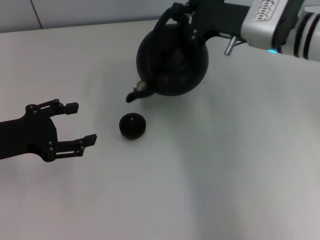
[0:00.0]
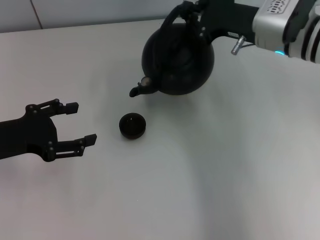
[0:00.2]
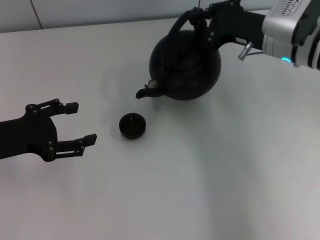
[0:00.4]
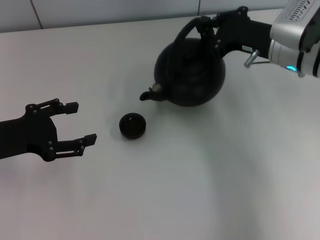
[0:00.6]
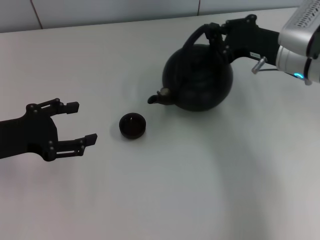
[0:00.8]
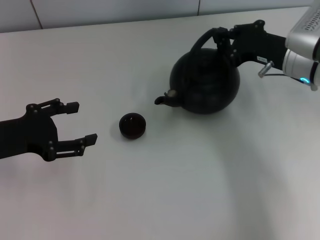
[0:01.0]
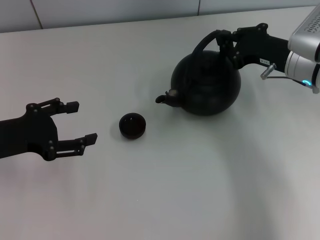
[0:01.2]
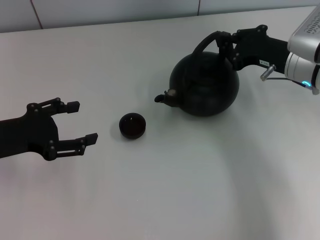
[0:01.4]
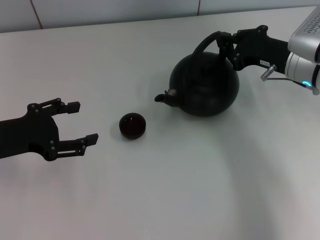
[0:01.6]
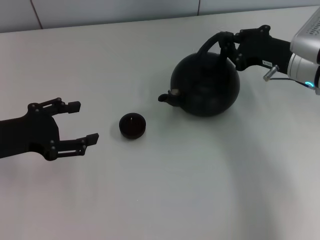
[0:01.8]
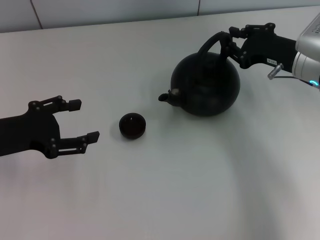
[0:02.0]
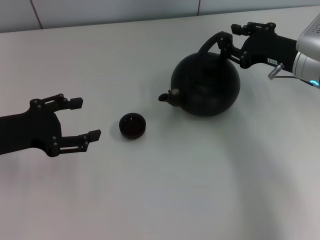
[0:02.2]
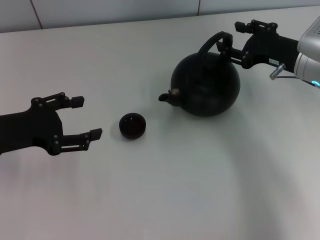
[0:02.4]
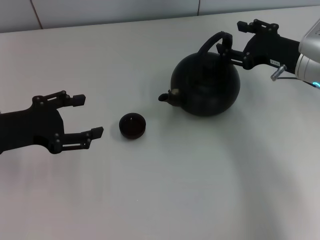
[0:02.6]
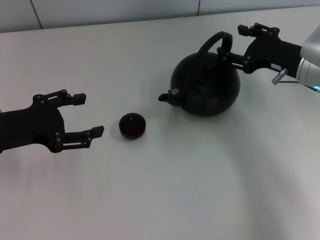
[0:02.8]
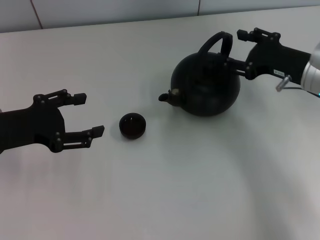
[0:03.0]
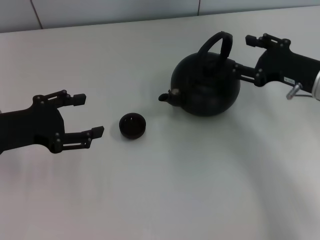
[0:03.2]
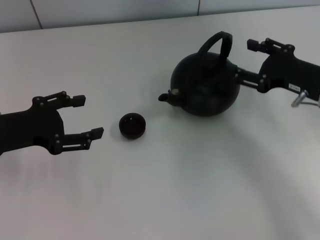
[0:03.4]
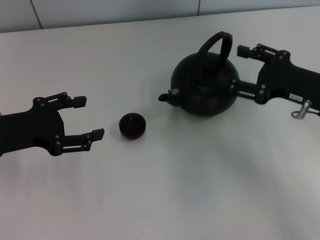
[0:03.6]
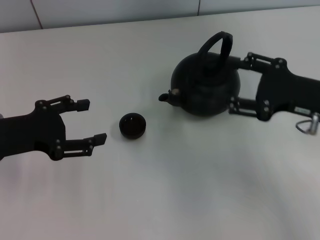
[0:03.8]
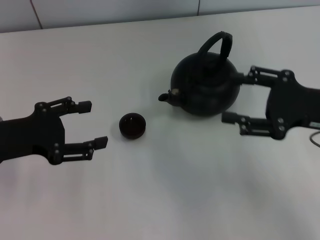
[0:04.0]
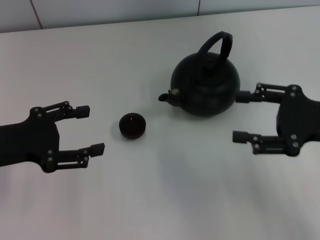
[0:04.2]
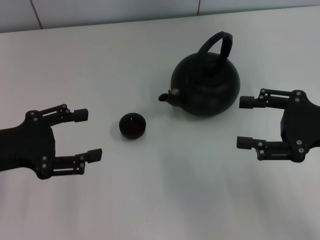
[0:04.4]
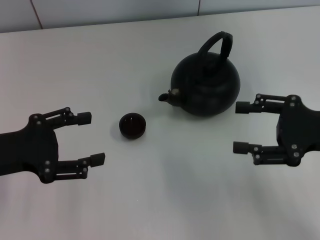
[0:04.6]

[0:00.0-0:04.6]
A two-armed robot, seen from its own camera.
Task of the whole recording: Grasp the handle of the teapot with one hand and pour tea into the teacup.
Step, 0:00.0 to 0:03.0: Put down the teapot with the right gripper.
0:00.0 to 0:01.6: The right gripper shifts roughly 10 cm to the right and downward.
0:01.6 to 0:03.0: The right gripper opens.
0:03.0 to 0:04.6: The right gripper travels backward by about 10 cm.

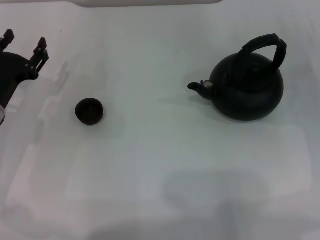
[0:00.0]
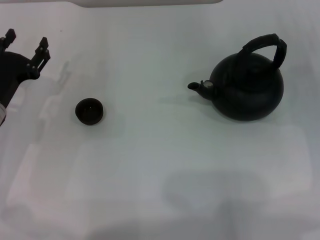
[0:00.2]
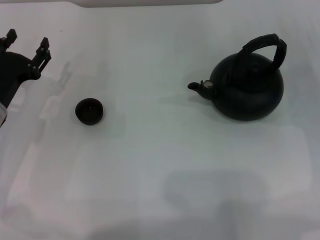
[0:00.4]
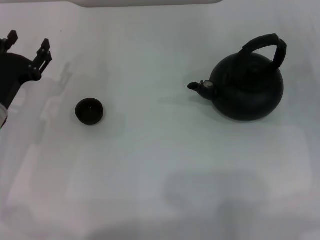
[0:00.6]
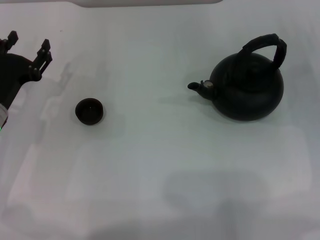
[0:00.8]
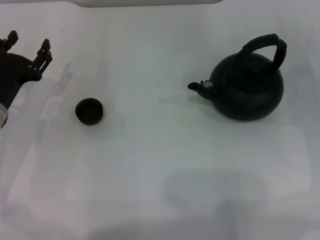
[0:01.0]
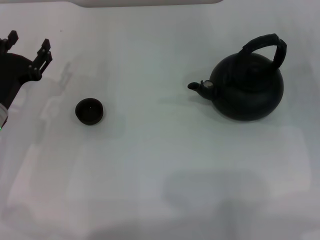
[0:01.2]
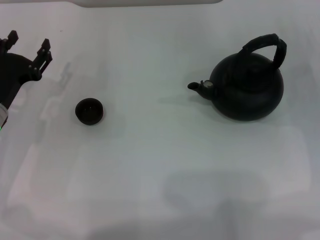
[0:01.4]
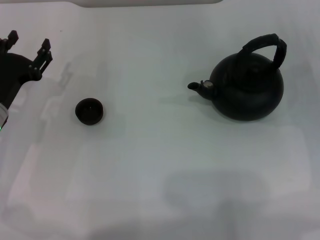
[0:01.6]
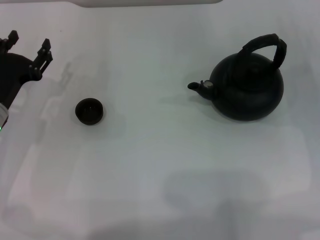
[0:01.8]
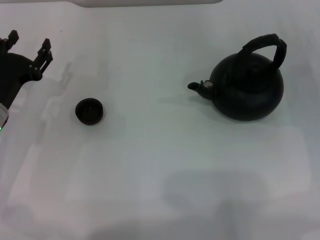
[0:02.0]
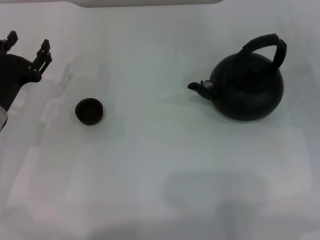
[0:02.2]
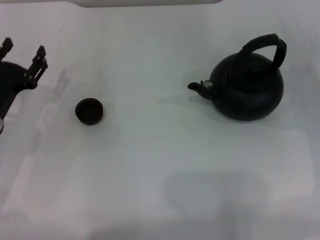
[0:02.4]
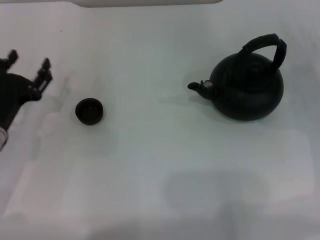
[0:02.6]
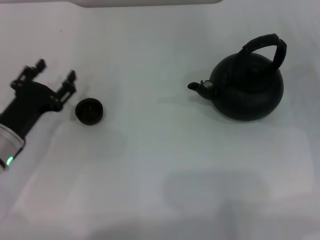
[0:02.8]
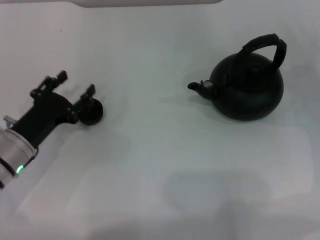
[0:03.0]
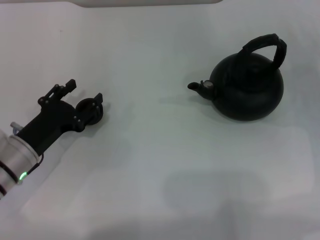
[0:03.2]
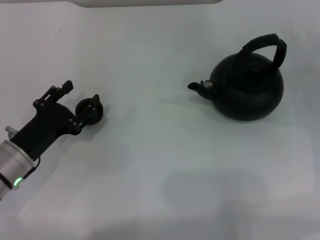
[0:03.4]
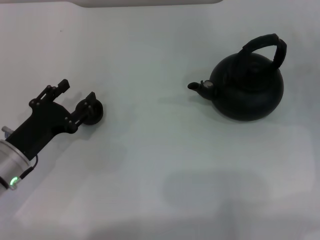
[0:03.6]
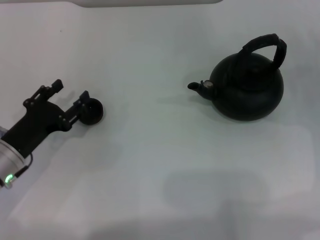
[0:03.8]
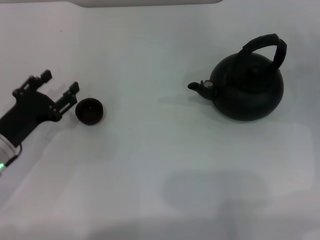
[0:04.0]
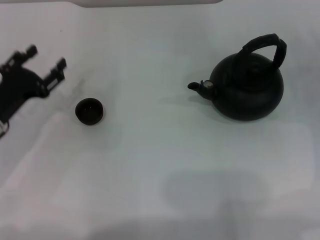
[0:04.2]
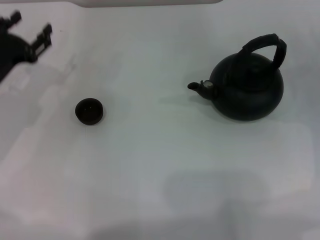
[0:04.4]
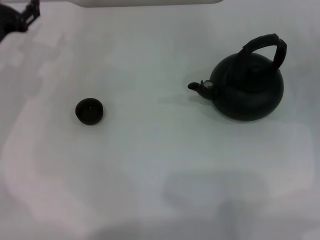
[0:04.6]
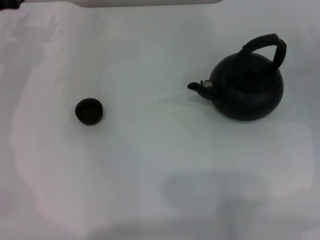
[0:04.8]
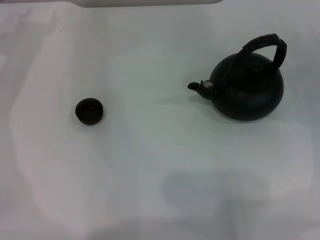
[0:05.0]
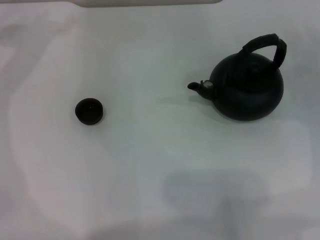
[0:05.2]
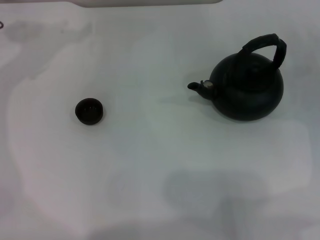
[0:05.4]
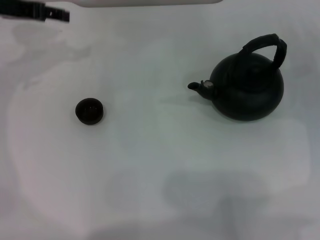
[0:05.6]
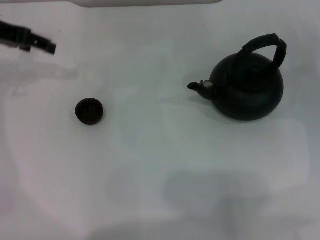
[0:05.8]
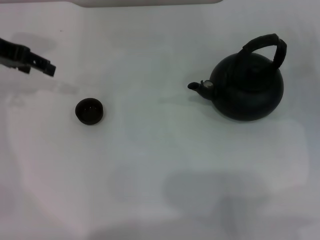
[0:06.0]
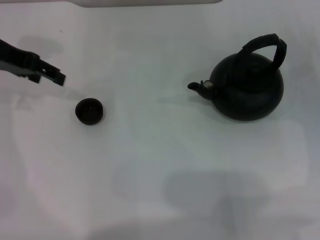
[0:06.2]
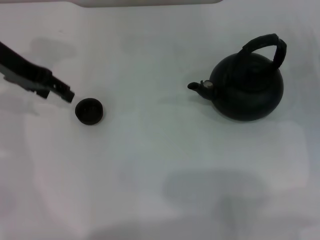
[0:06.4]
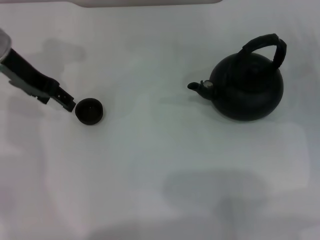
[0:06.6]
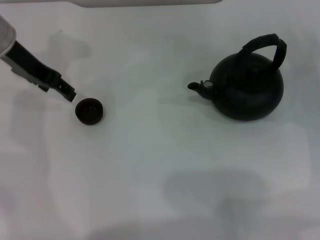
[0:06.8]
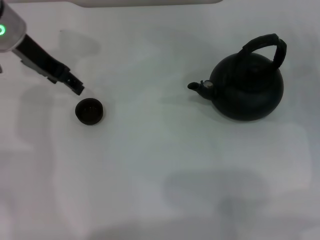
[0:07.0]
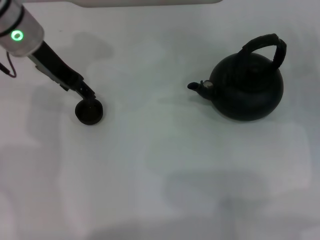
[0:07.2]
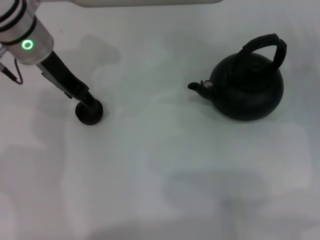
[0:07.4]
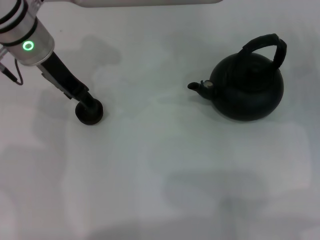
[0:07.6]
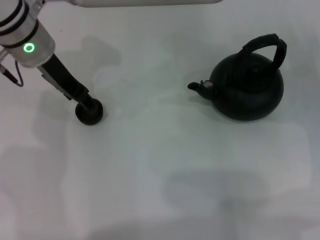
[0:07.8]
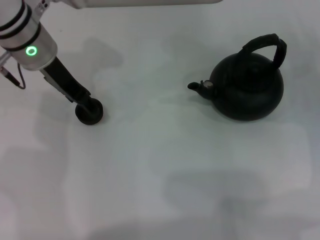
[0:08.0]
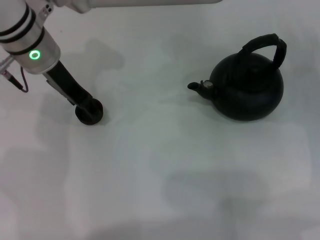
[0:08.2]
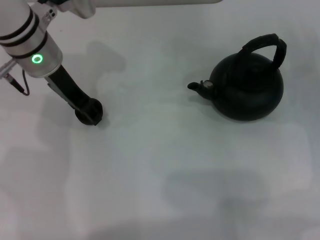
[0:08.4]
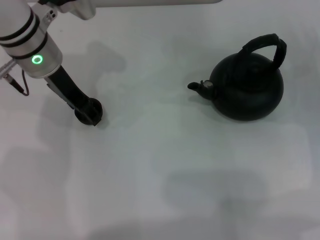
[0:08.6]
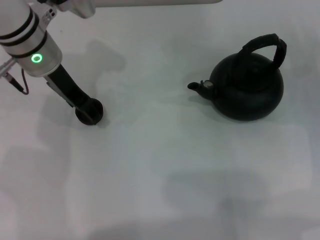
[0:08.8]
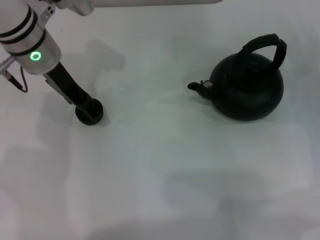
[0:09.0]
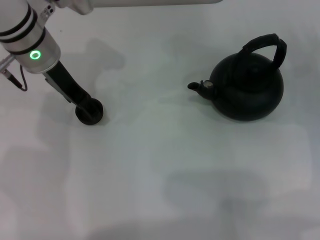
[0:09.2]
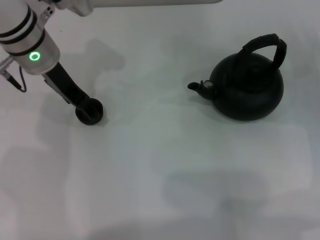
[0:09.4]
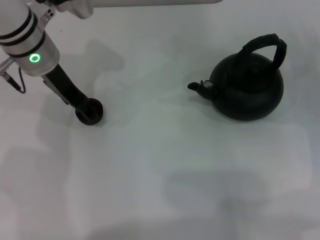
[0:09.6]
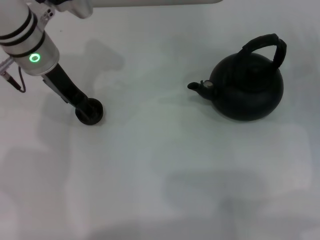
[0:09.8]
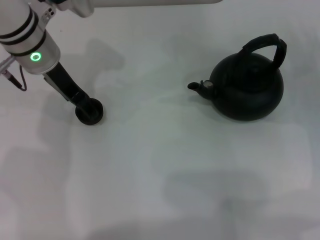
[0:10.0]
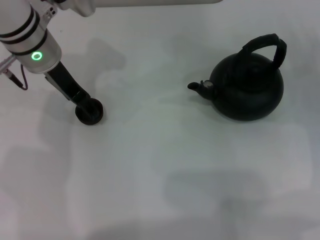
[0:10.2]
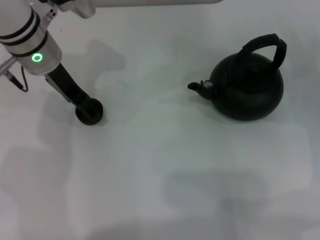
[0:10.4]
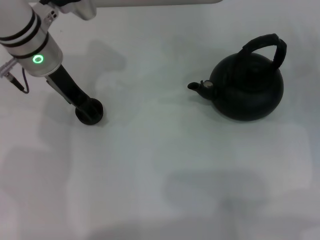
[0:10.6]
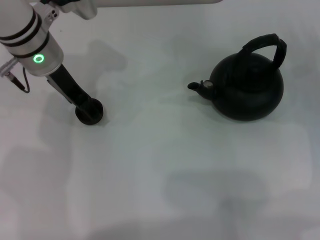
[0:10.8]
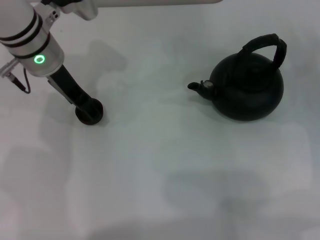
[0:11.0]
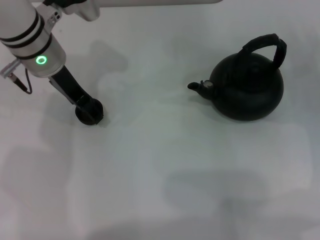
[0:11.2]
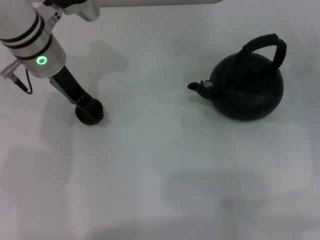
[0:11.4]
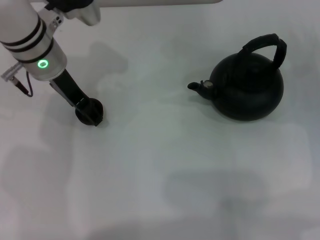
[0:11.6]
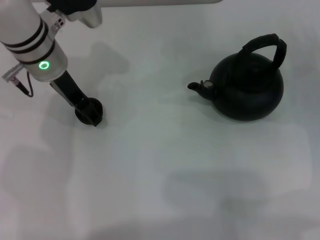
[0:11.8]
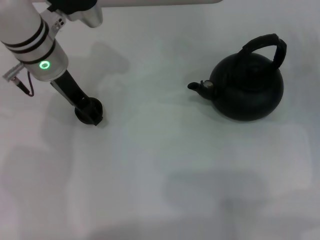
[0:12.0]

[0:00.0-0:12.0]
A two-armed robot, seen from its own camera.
Task of the whole recording: Grasp the handle of the teapot with one hand and pour tea into the teacup.
0:00.0 to 0:01.6: Neither gripper changes place.
0:01.6 to 0:03.0: The left gripper moves about 5 cm.
0:03.0 to 0:04.4: The left gripper is displaced forward by some 5 cm.
0:04.4 to 0:06.0: The left gripper shifts some 15 cm upward and forward.
0:06.0 to 0:07.6: The left gripper is displaced to the right by about 10 cm.
0:07.6 to 0:09.0: The left gripper opens its fingers.
0:09.0 to 0:10.4: Both grippers stay put.
0:10.4 to 0:12.0: Neither gripper changes place.

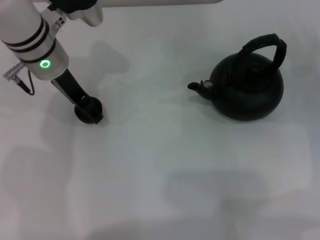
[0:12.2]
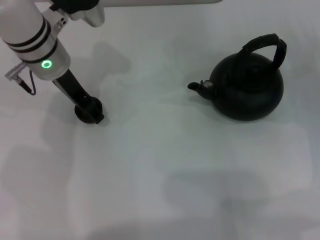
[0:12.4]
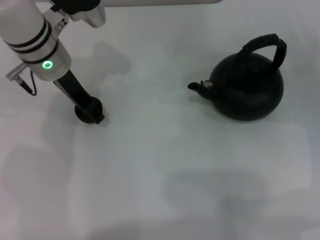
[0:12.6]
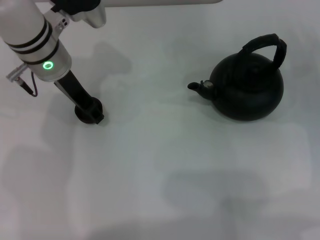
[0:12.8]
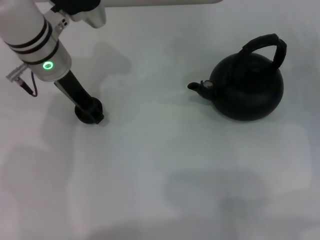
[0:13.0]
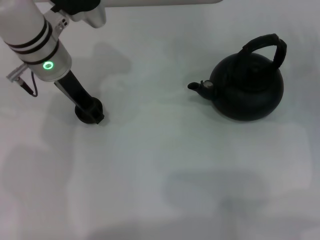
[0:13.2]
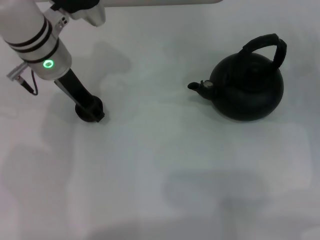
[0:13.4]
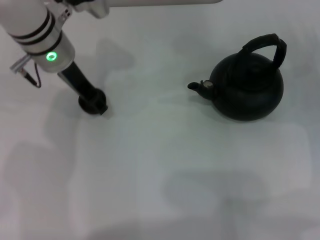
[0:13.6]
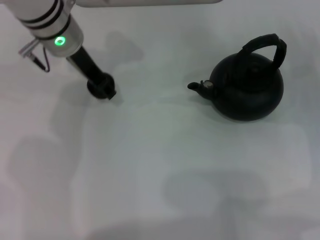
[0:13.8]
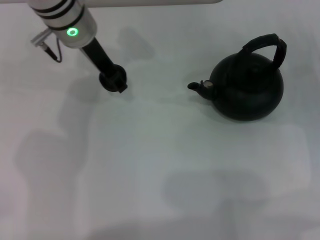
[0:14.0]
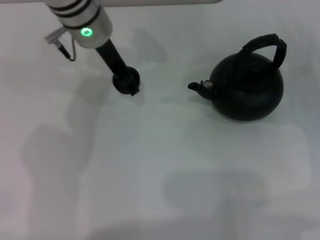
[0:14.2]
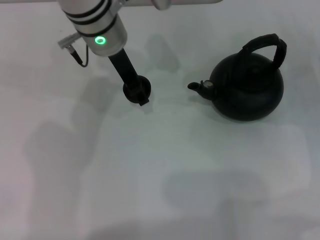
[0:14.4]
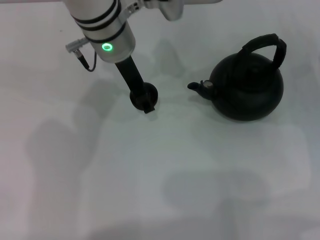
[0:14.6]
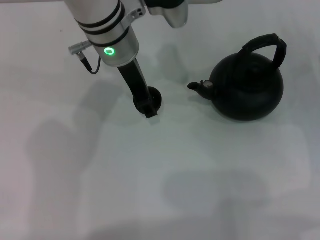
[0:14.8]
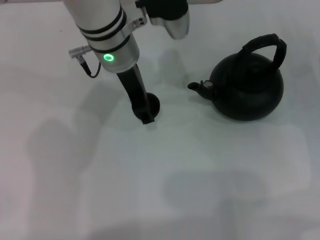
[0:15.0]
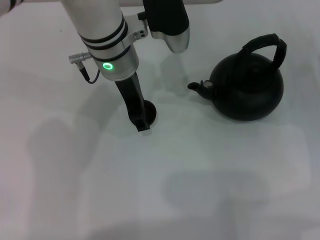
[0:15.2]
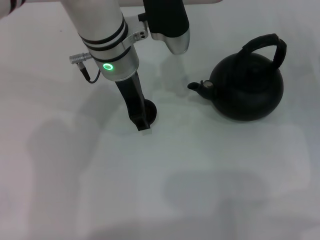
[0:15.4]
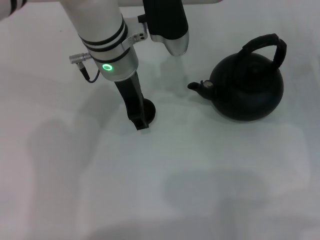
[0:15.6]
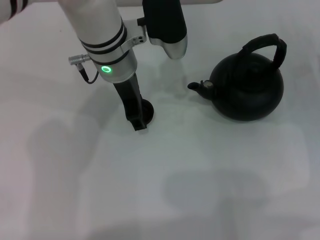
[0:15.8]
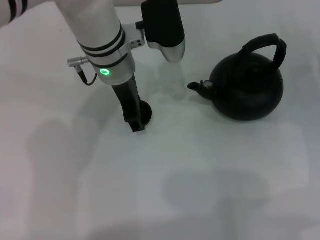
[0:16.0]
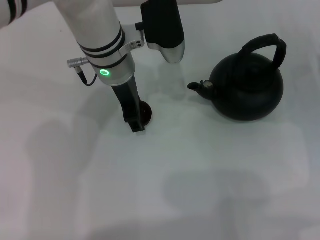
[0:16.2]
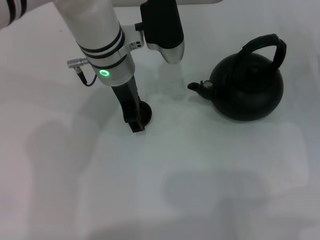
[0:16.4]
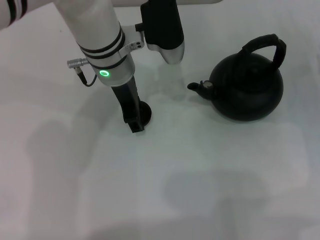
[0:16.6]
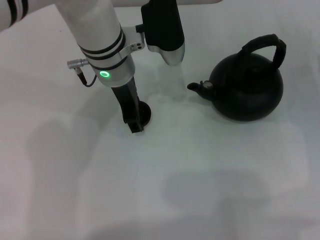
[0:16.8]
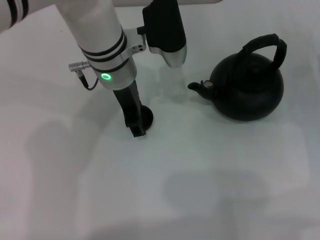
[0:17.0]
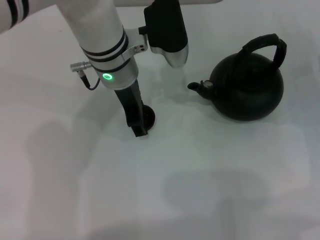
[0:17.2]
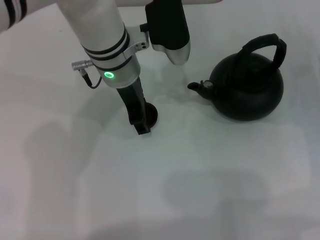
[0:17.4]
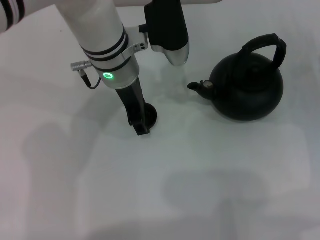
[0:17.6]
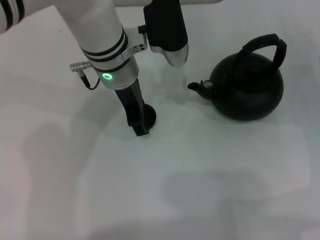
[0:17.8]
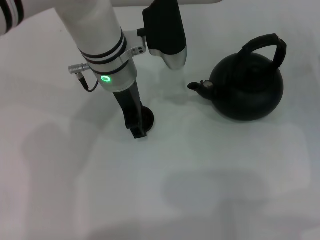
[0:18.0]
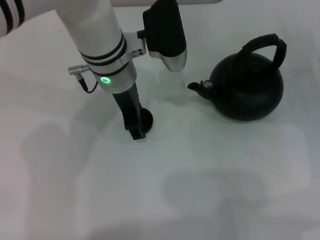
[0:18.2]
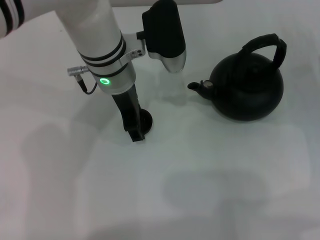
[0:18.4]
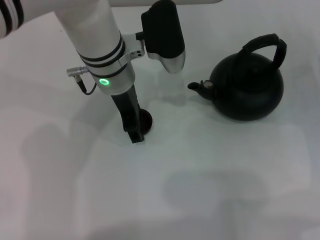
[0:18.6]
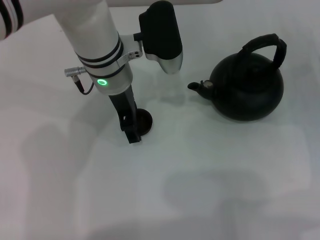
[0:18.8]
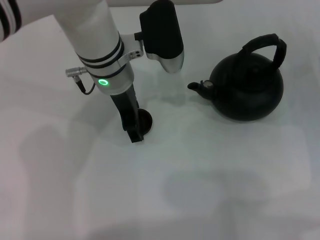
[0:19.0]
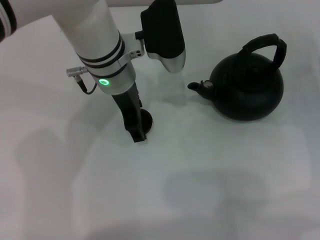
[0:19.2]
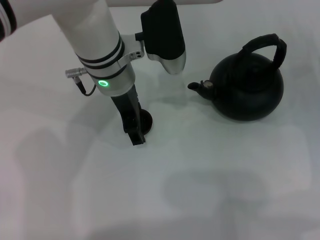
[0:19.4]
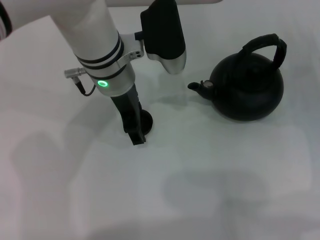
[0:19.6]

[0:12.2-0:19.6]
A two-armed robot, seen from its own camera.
Task of the whole recording: Grasp the handle of the teapot with one hand and pour tea into the teacup.
0:12.2 to 0:13.6: The left gripper closes up.
0:13.6 to 0:15.2: The left gripper travels to the right by approximately 10 cm.
0:15.2 to 0:16.6: The grippers move only a little.
0:16.6 to 0:18.2: The two grippers keep their place.
0:18.2 to 0:19.6: The left gripper opens.
